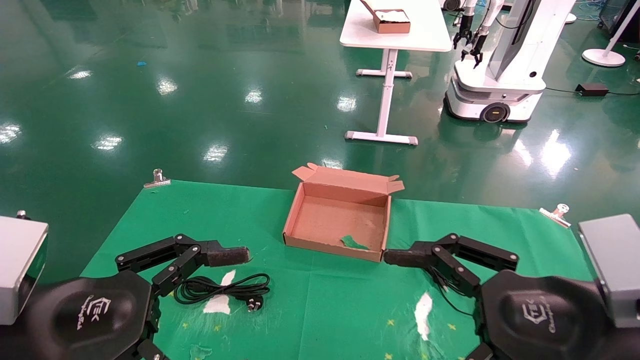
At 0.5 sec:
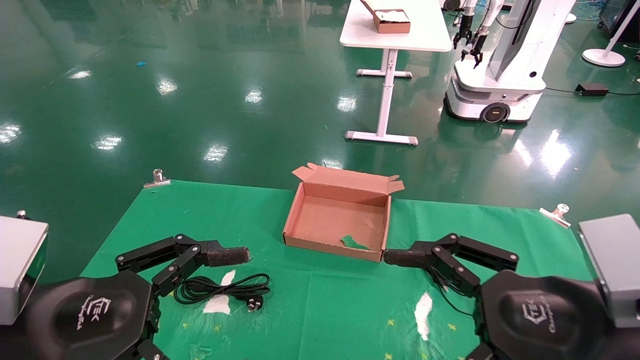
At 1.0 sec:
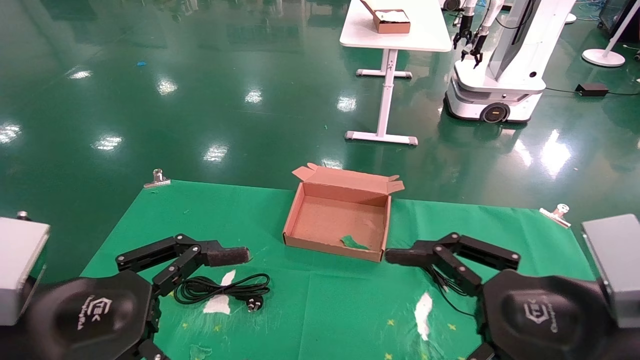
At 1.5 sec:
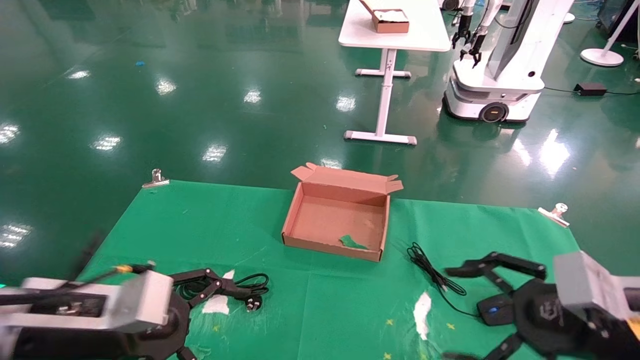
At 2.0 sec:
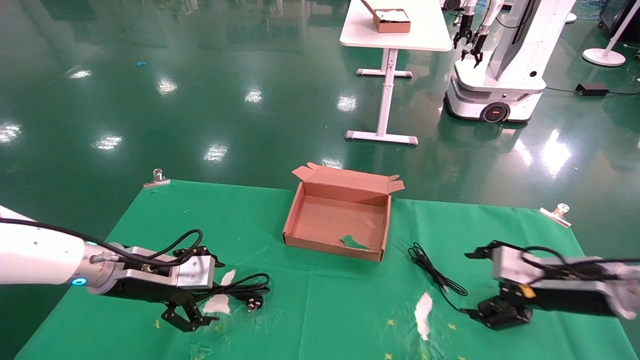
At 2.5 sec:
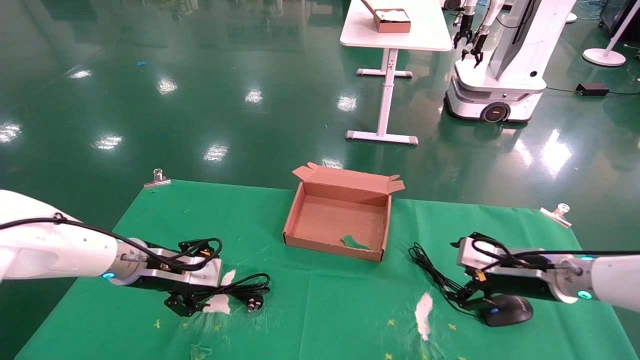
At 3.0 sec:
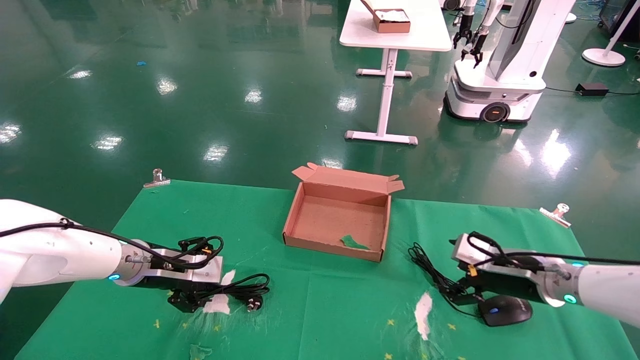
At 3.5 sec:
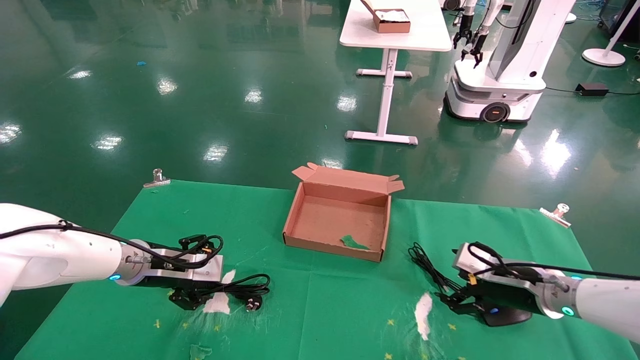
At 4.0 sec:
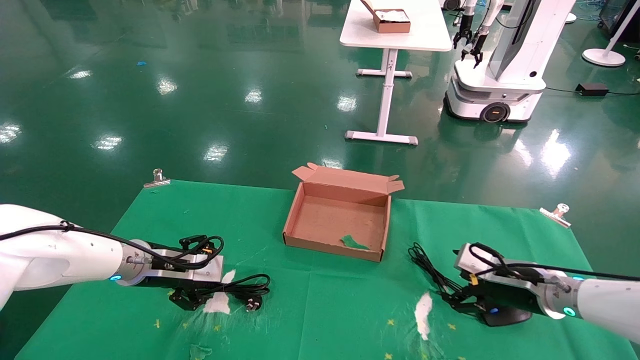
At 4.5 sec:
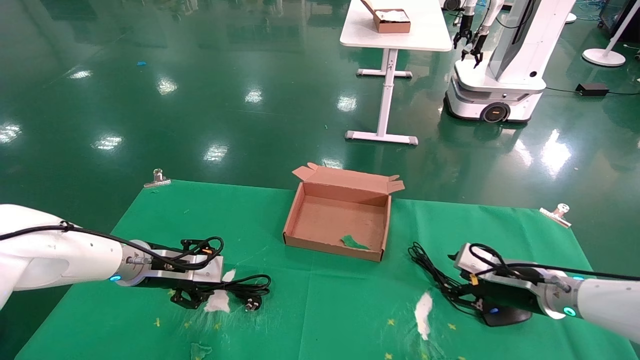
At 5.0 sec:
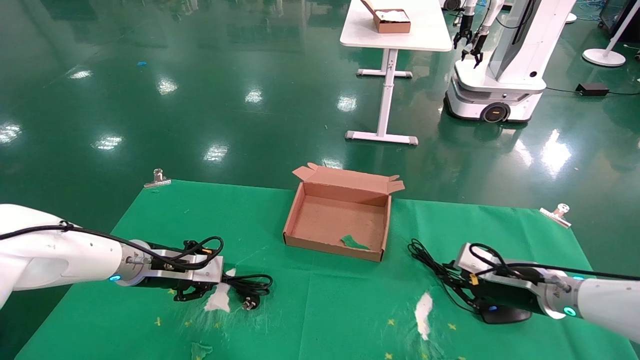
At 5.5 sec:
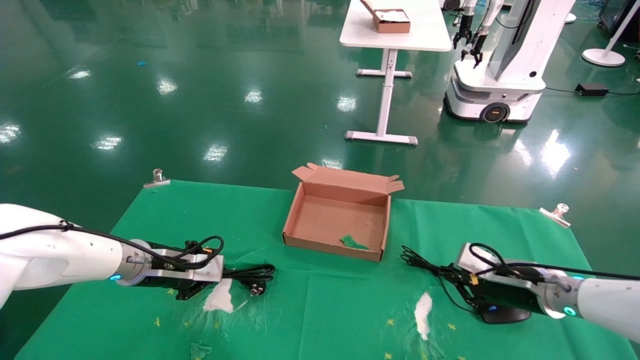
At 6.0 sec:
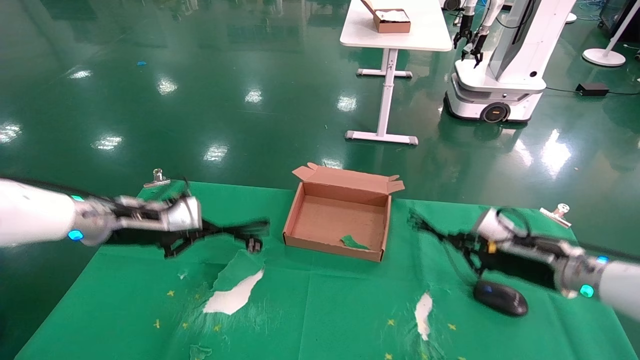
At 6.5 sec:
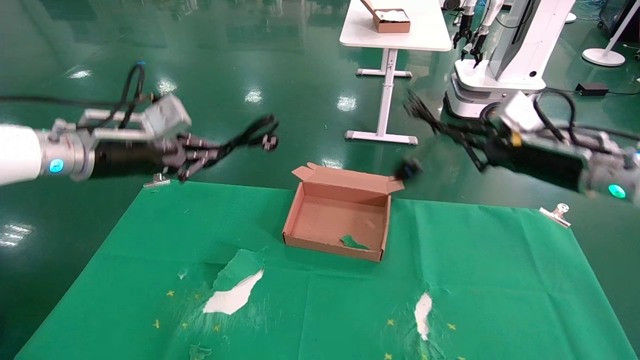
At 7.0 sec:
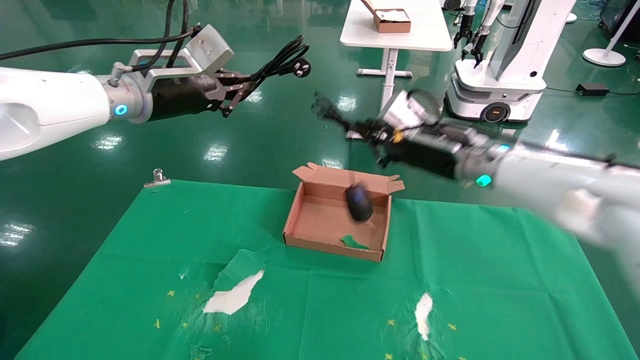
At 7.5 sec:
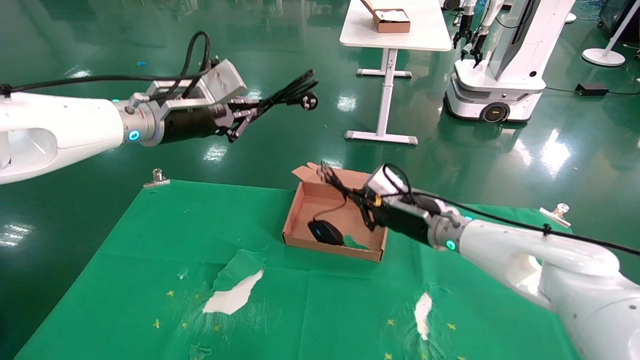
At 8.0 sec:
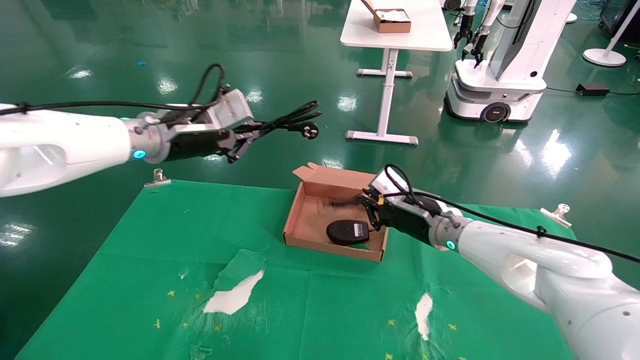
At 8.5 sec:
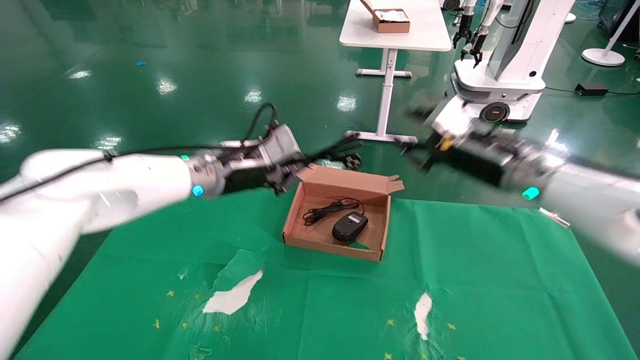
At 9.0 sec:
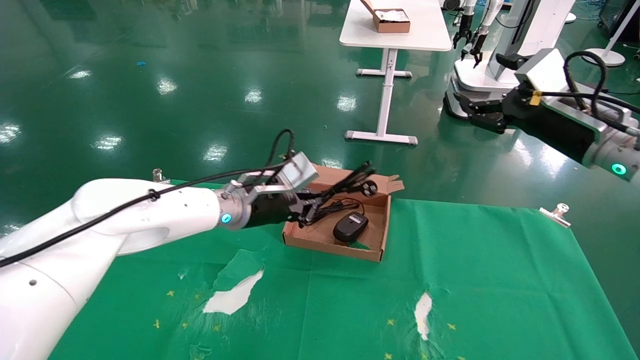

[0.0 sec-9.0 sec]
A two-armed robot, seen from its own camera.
Step, 1.5 sec to 4.5 sec: Grab and lift both the mouse and power cord from the accessory packaging area at the same time.
0.0 sec to 2.0 sec: The left gripper moves forward, some 20 cm, while the right gripper shifts approximately 20 cm forward and to the right.
2.0 sec to 4.5 sec: The right gripper is displaced forward and downward by about 10 cm; the left gripper shifts about 5 cm forward.
4.5 sec to 7.0 sec: The left gripper goes roughly 25 cm upward, and closes. The right gripper moves upward and to the left, about 25 cm, and closes.
7.0 sec to 9.0 sec: The left gripper shifts roughly 20 cm downward and to the right; the right gripper shifts roughly 15 cm to the right, and opens its fingers.

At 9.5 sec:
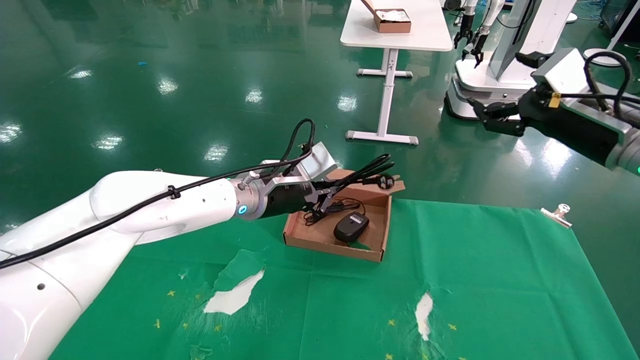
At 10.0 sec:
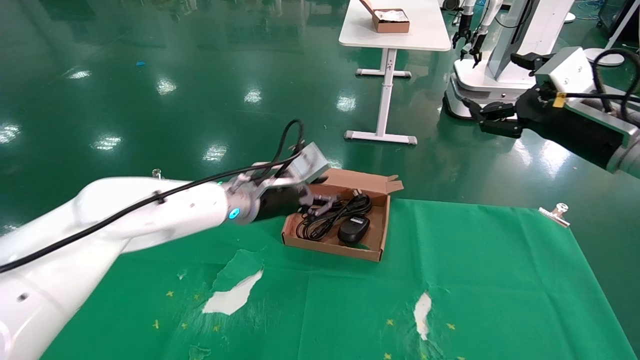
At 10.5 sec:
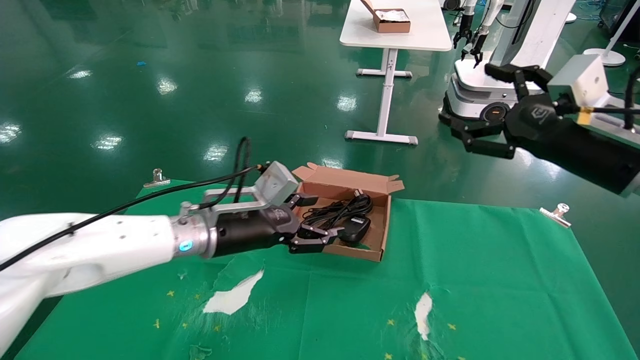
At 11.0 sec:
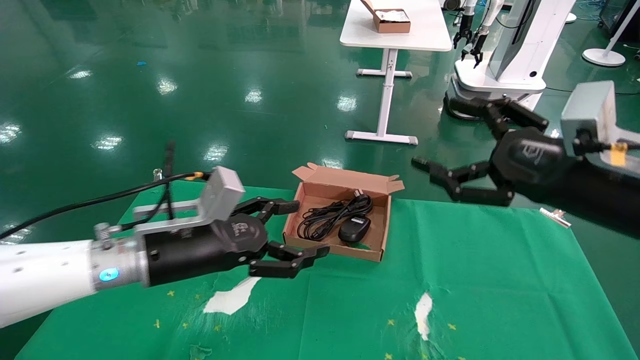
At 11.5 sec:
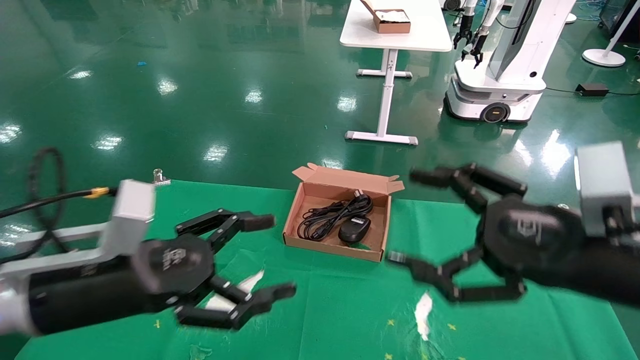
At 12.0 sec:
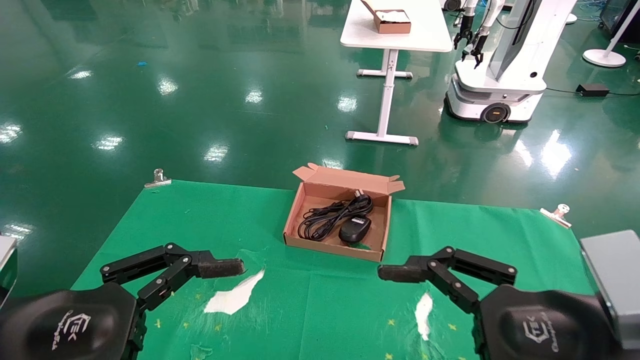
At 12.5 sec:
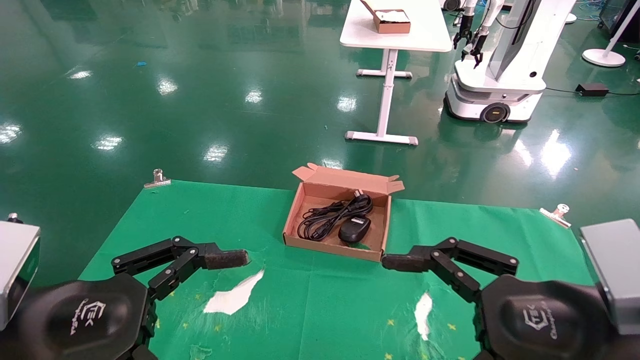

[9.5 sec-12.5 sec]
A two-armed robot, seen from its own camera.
9.5 sec to 11.0 sec: Both grippers move backward and to the left, some 15 cm. The left gripper opens up.
11.0 sec to 12.5 sec: The right gripper is displaced backward, downward and to the left by approximately 15 cm. Meanwhile the left gripper shifts about 20 cm backward and to the left.

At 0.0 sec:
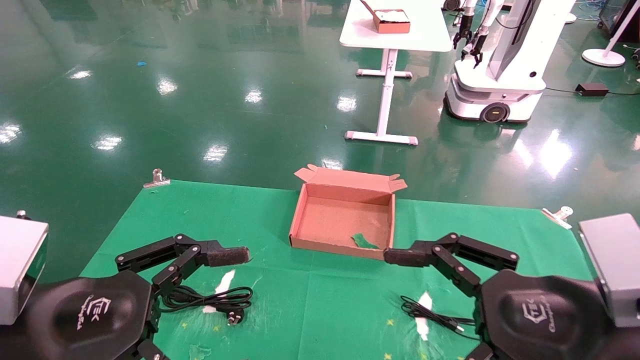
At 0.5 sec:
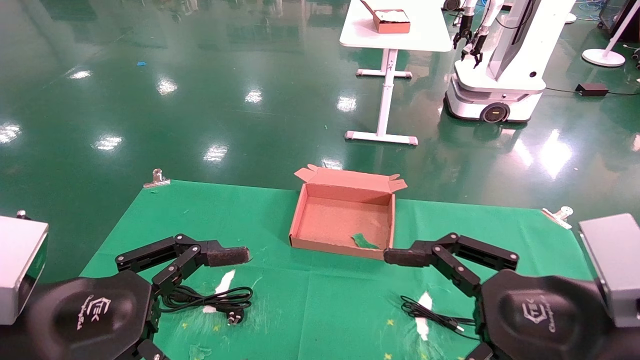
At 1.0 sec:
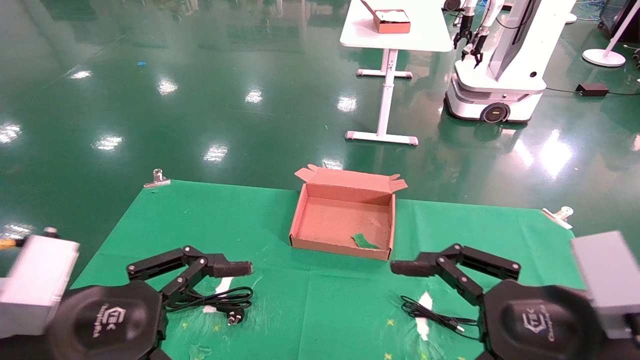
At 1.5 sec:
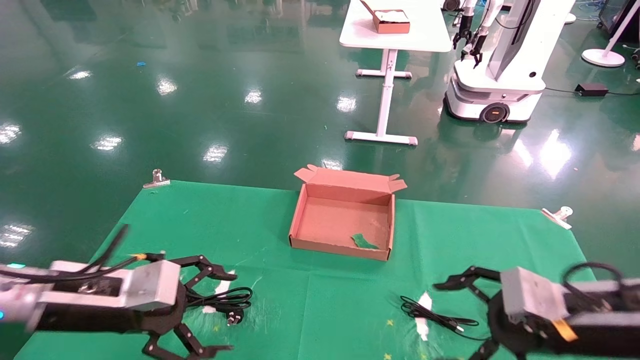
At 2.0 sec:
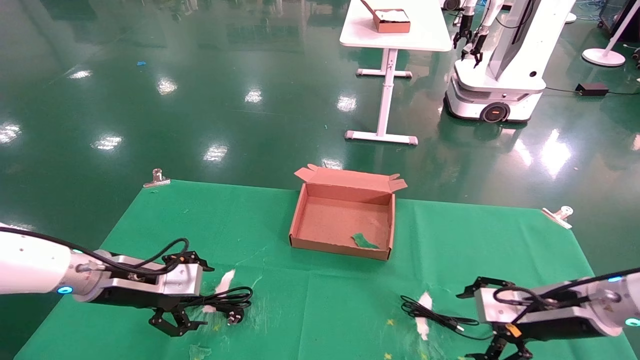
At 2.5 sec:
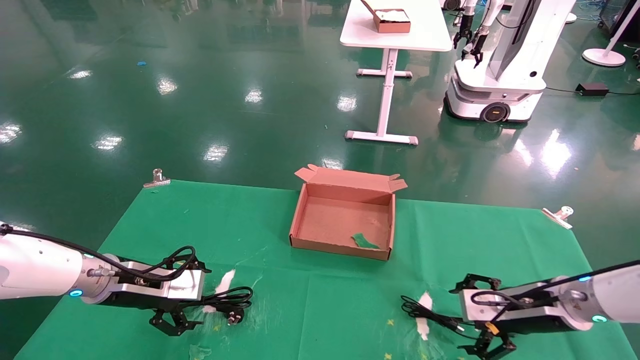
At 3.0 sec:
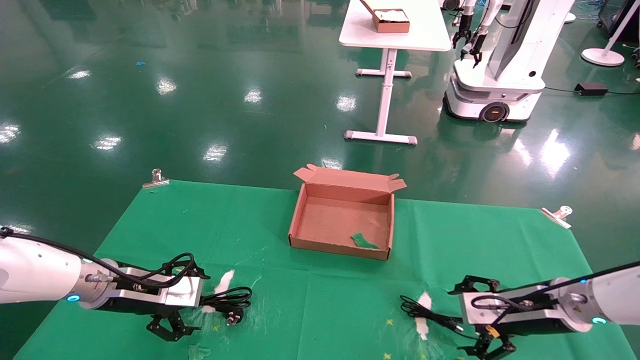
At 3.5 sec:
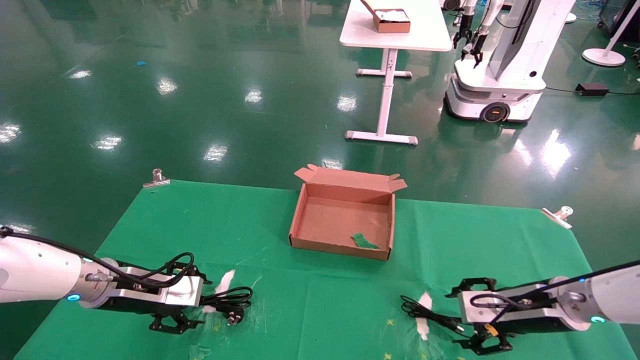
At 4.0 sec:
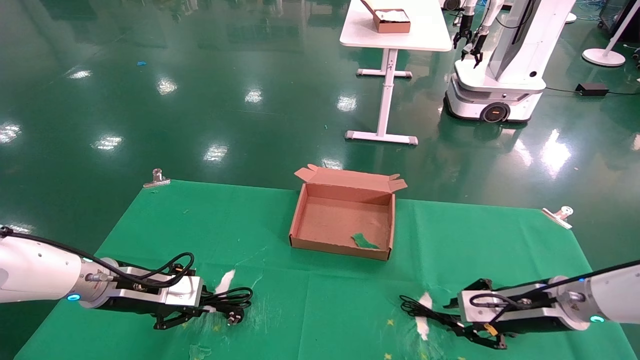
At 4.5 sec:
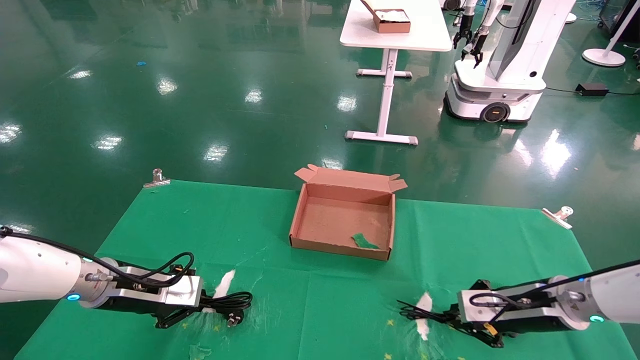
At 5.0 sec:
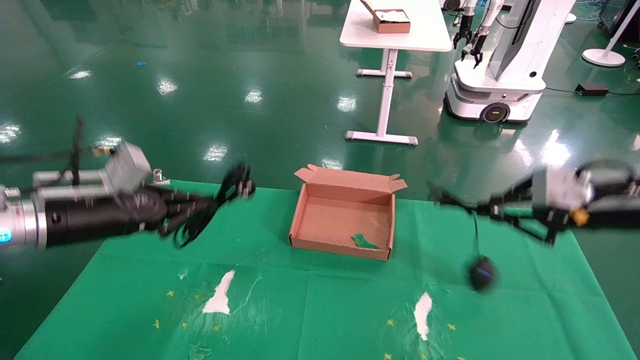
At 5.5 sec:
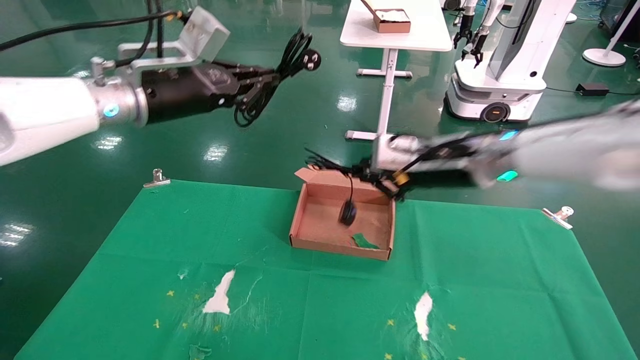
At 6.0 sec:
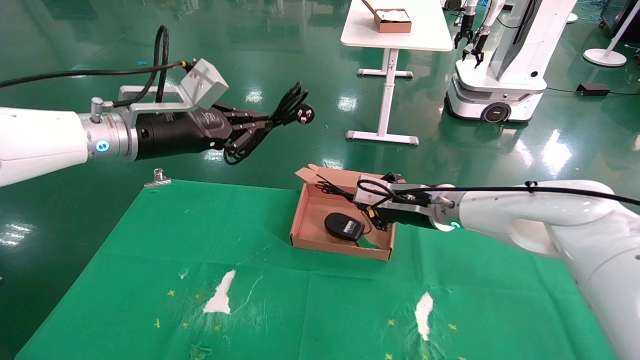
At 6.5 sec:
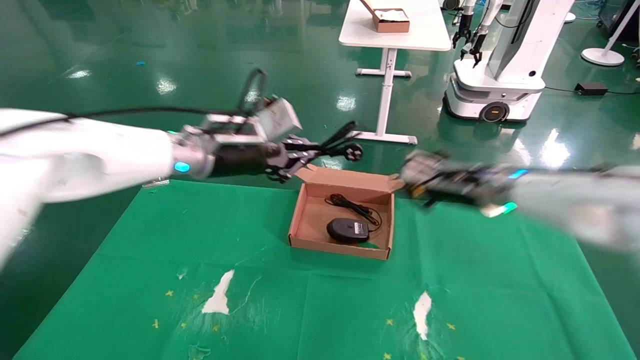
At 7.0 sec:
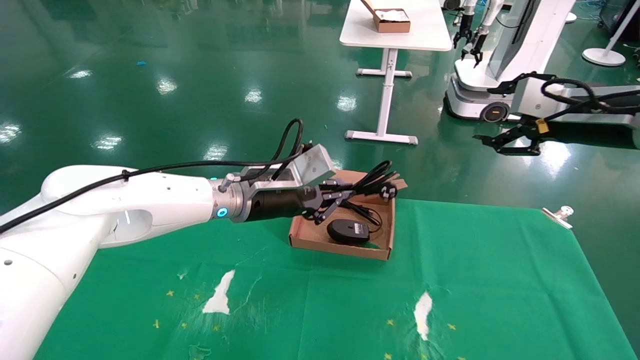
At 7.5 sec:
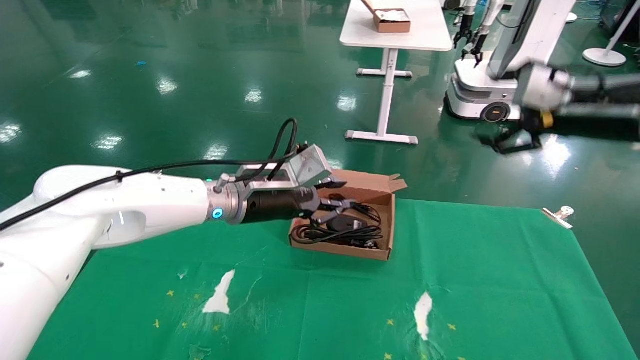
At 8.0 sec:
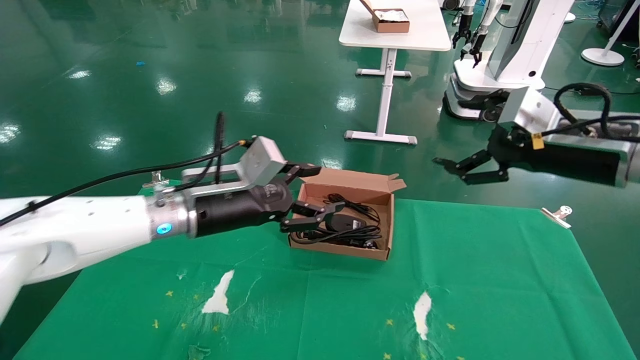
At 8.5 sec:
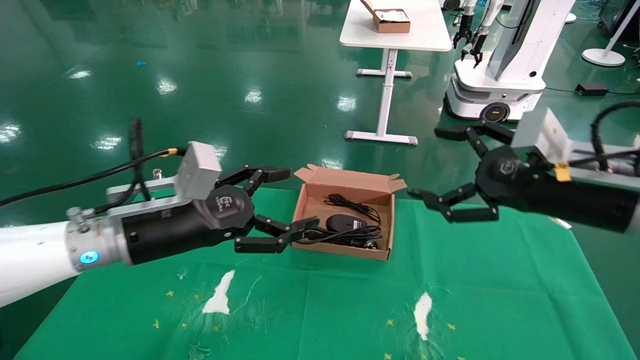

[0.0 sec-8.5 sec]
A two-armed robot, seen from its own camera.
Step, 2.0 sec to 5.0 sec: Grab and lift both the mouse and power cord from the accessory packaging area at the same time.
Step, 5.5 sec to 7.5 sec: Place the mouse and power cord into the box.
0.0 sec to 2.0 sec: The right gripper is displaced forward, downward and to the right by roughly 25 cm. Meanwhile the left gripper shifts roughly 20 cm forward.
2.0 sec to 4.0 sec: The left gripper closes; the right gripper closes.
4.0 sec to 6.5 sec: The left gripper moves upward and to the right, approximately 25 cm; the right gripper swings up and down, roughly 20 cm each way, with 2 reversals.
6.5 sec to 8.5 sec: The right gripper shifts roughly 15 cm backward, and opens up. Meanwhile the left gripper goes roughly 15 cm backward, downward and to the left, and opens its fingers.
